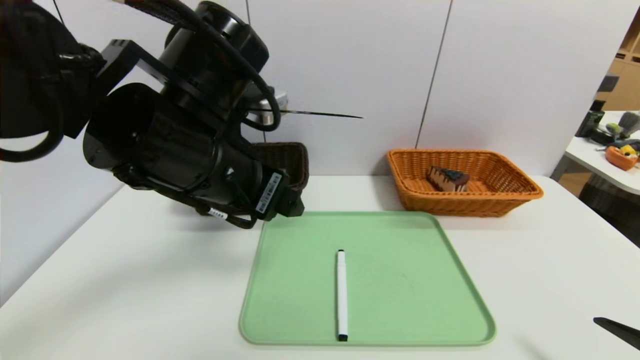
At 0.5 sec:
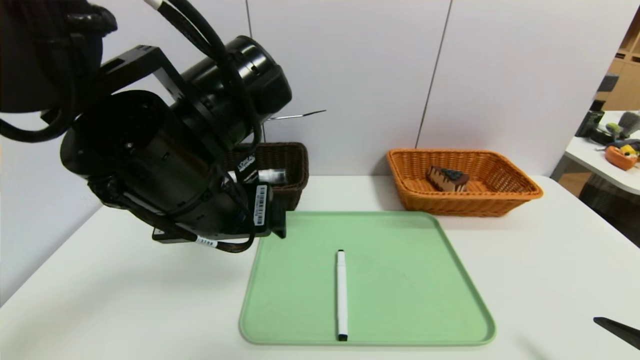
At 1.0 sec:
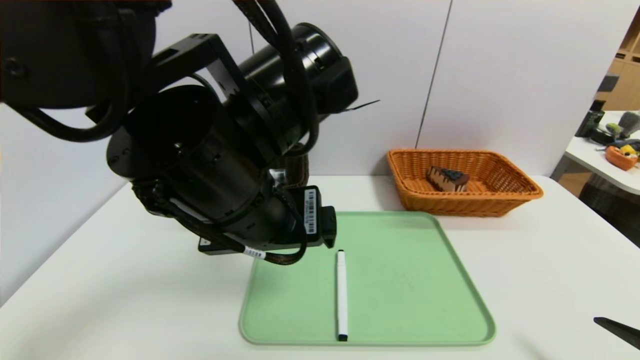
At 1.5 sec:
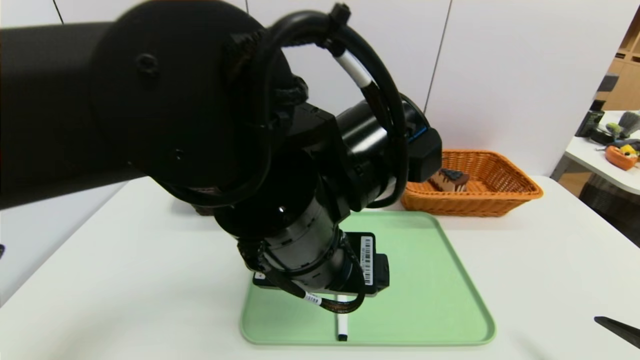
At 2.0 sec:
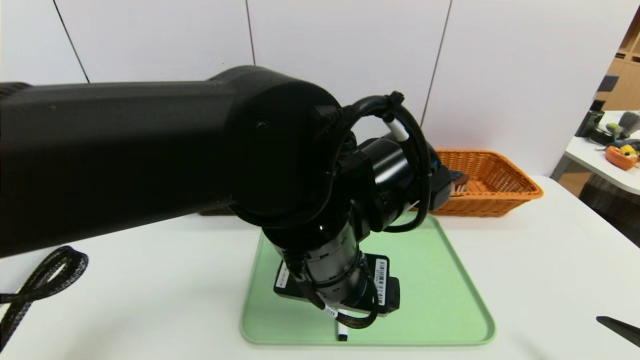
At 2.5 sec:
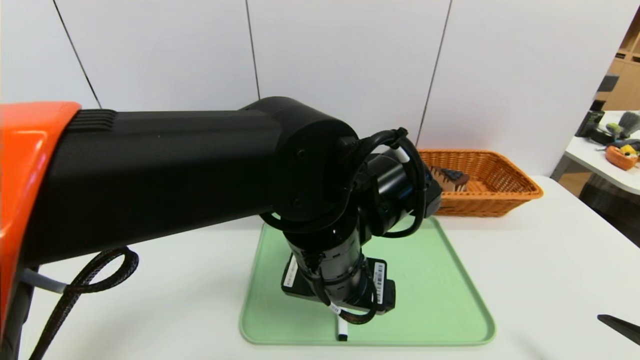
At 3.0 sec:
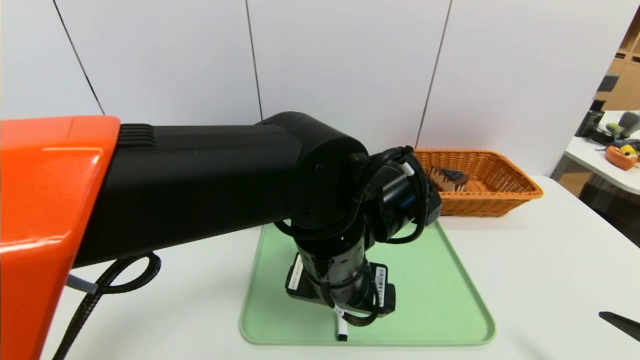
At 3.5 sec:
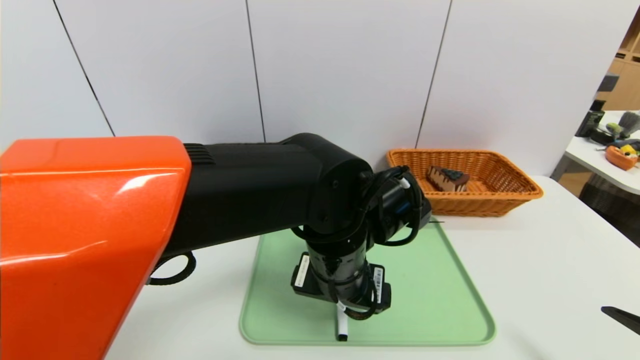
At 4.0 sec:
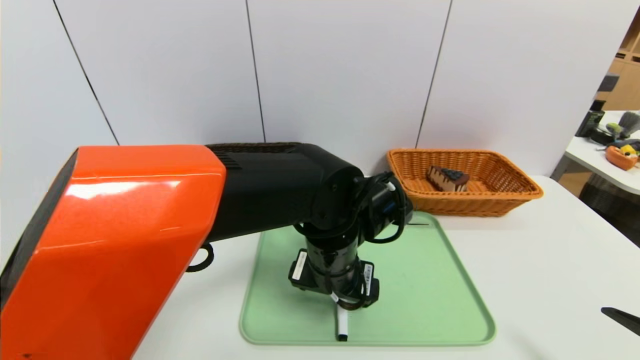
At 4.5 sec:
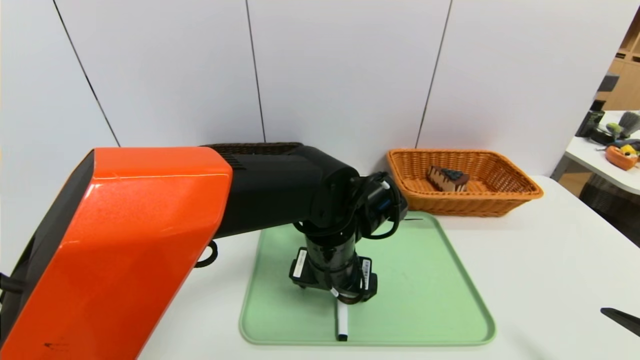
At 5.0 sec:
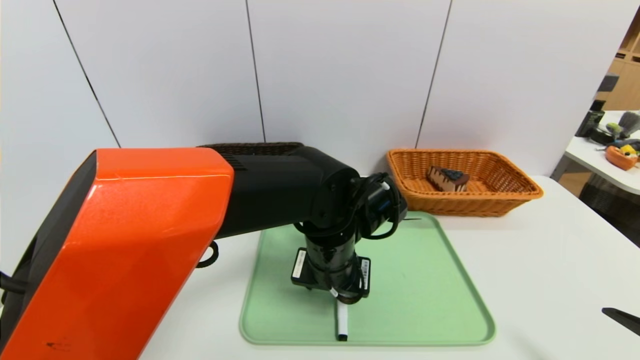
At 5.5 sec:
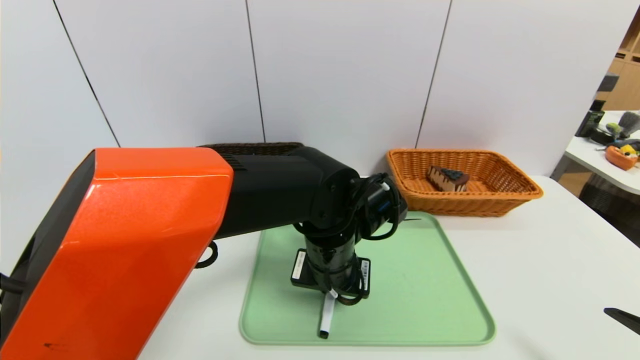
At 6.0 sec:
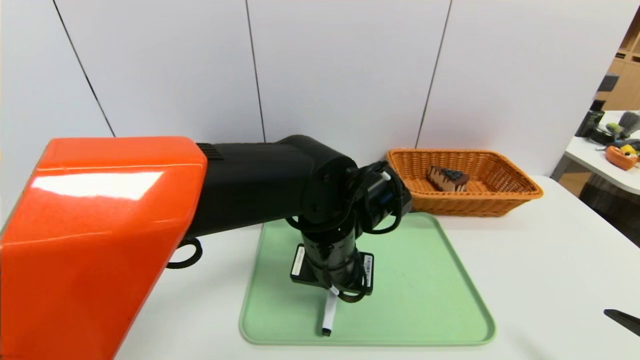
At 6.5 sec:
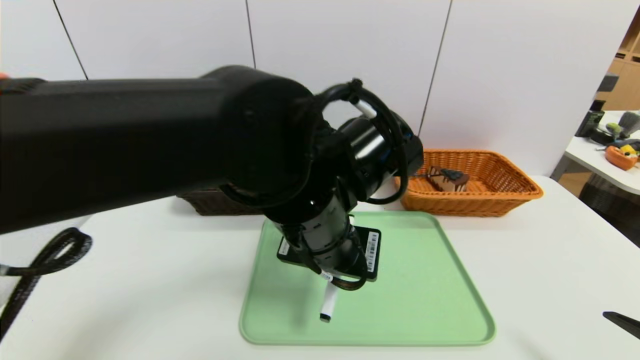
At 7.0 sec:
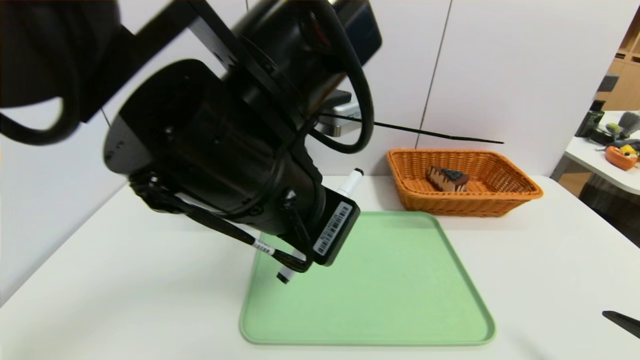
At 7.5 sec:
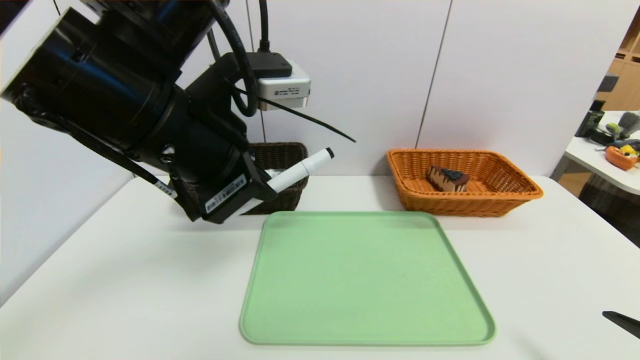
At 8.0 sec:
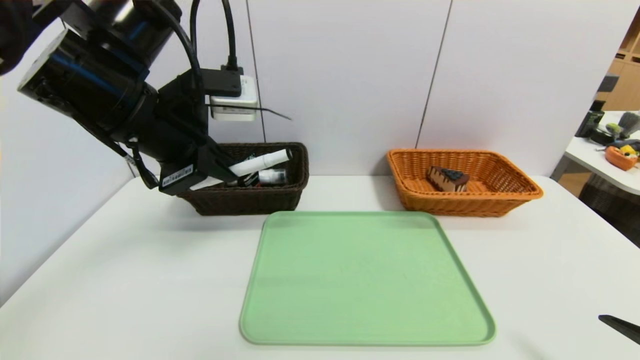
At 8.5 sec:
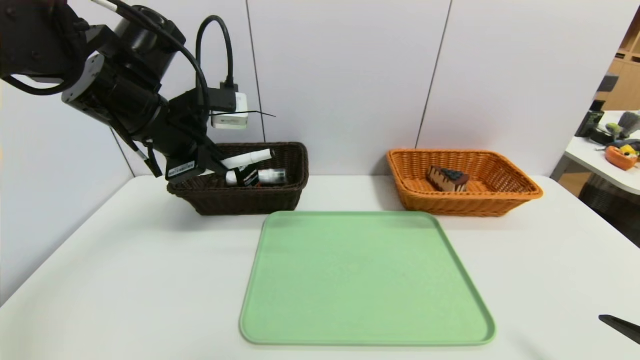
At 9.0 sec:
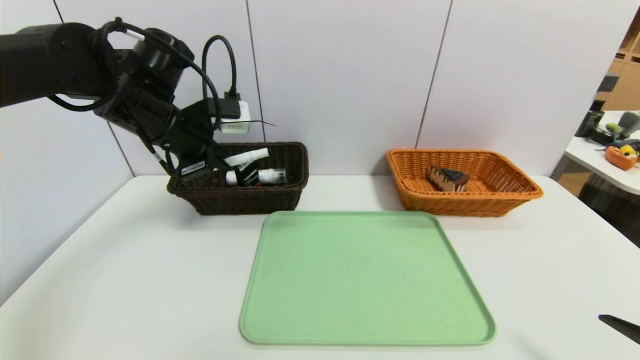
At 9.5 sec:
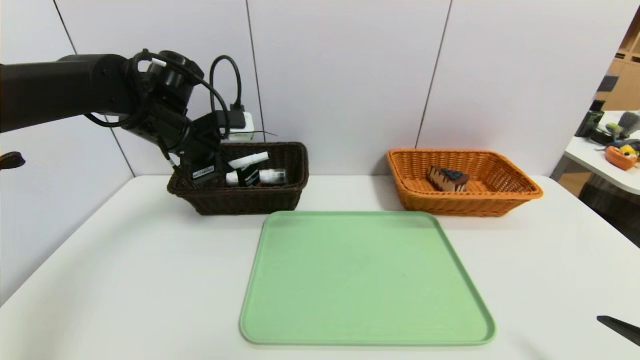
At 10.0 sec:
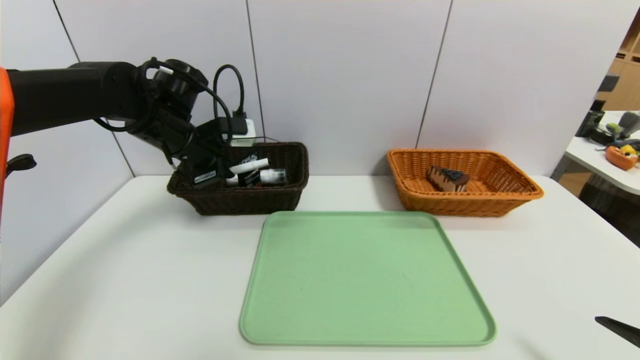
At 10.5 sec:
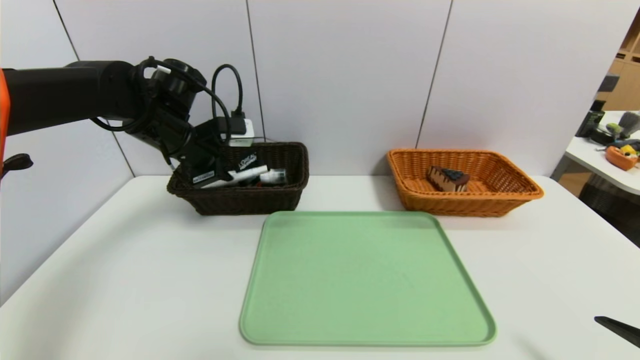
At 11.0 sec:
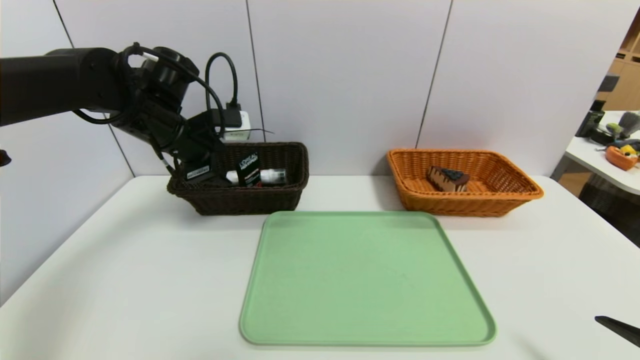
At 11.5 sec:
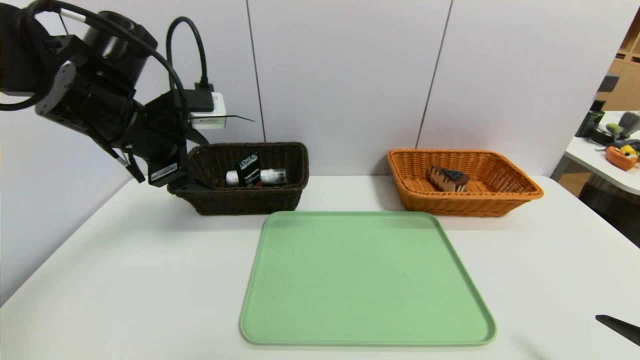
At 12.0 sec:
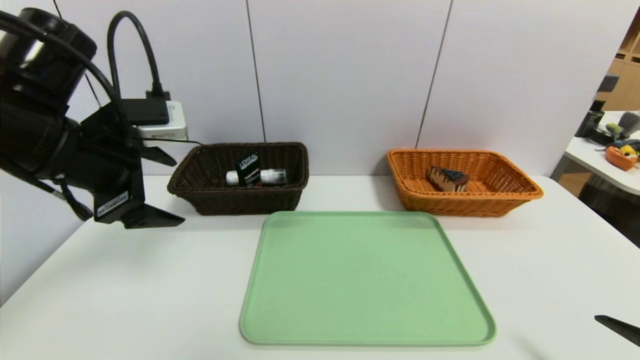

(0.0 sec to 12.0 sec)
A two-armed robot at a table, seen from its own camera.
Task of the whole recording: place the food in the right basket with the right gripper, and place the non food items in the left basket with the left gripper.
Step, 0.0 sec - 11.5 sec: Grasp the black marker and put it in the left basket.
0.0 sec - 2.0 sec: The left gripper is displaced to the right and downward by approximately 10 cm.
2.0 sec - 4.0 sec: The left gripper is displaced downward and forward by some 10 cm.
4.0 sec - 6.0 sec: The left gripper closes up.
6.0 sec - 8.0 sec: The left gripper goes some 25 cm to the left and upward.
8.0 sec - 10.0 sec: The left gripper is displaced forward and downward by approximately 15 cm.
10.0 sec - 12.0 sec: The left gripper travels backward by some 15 cm, and opens up.

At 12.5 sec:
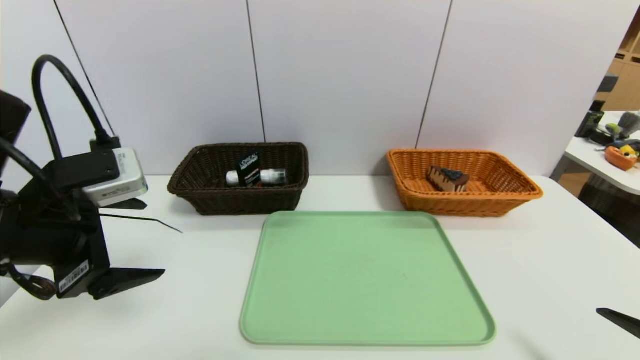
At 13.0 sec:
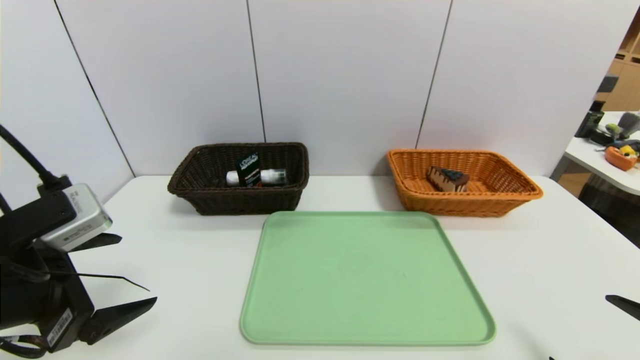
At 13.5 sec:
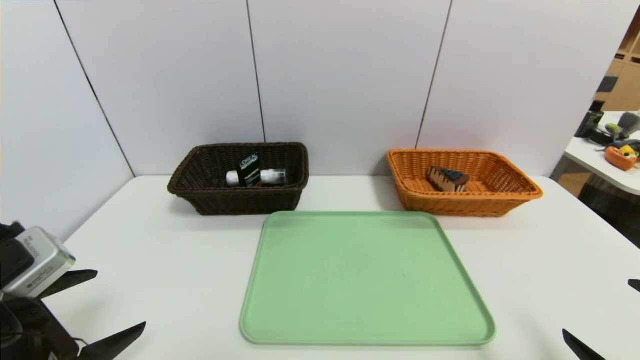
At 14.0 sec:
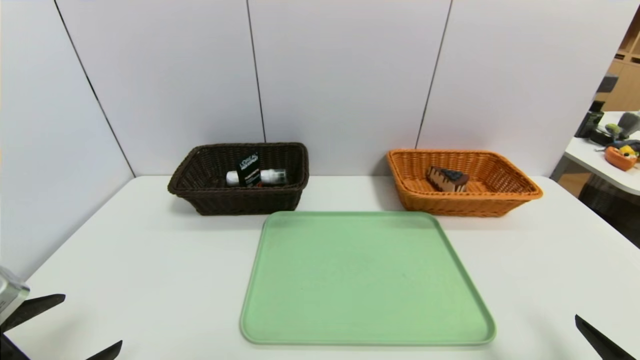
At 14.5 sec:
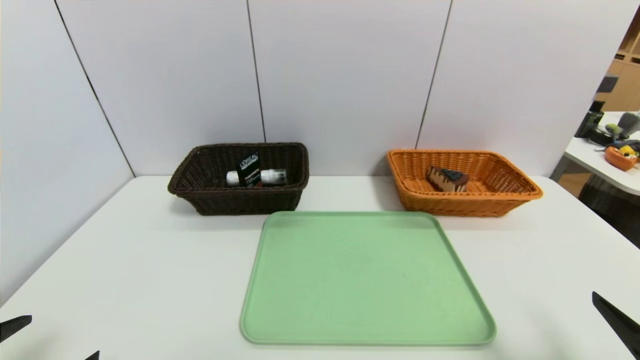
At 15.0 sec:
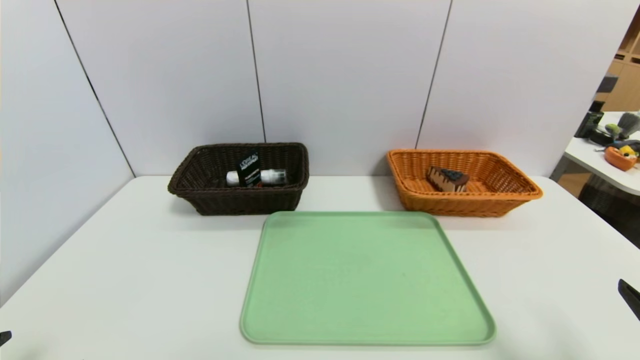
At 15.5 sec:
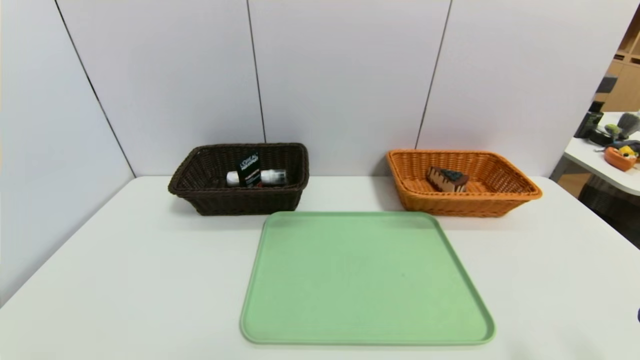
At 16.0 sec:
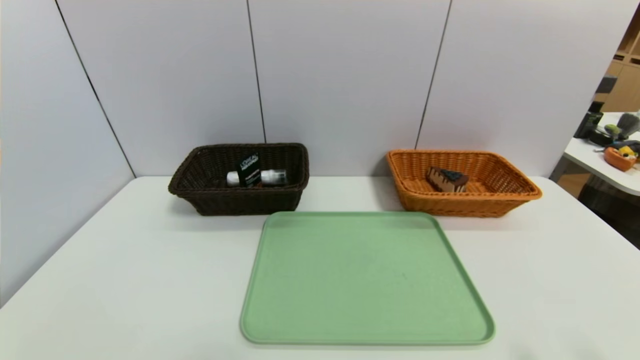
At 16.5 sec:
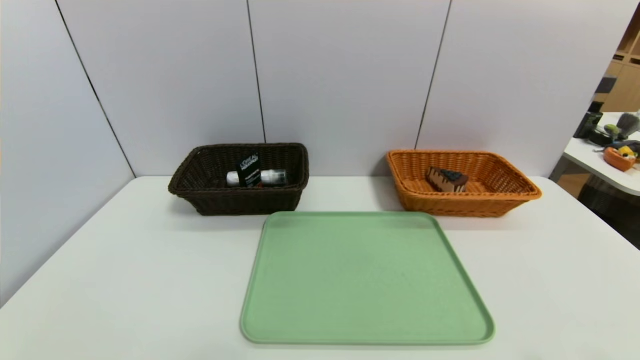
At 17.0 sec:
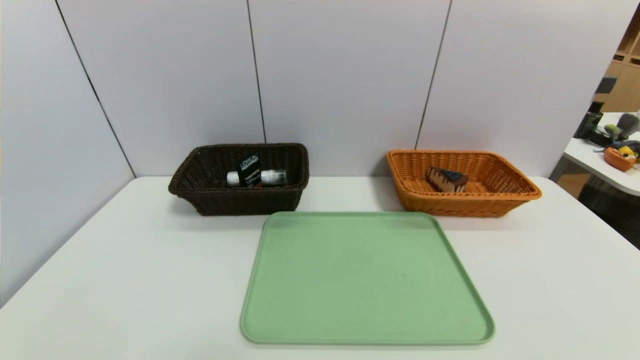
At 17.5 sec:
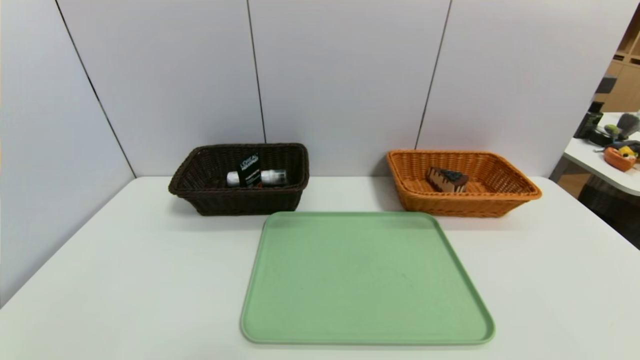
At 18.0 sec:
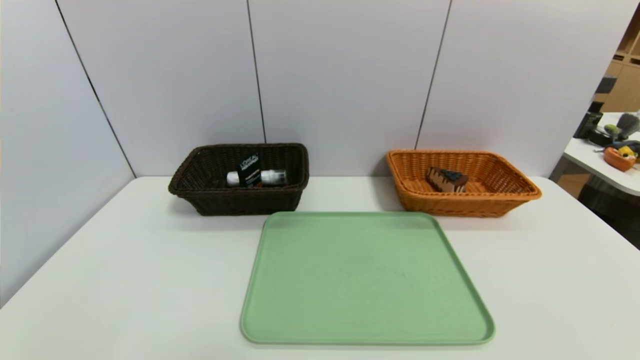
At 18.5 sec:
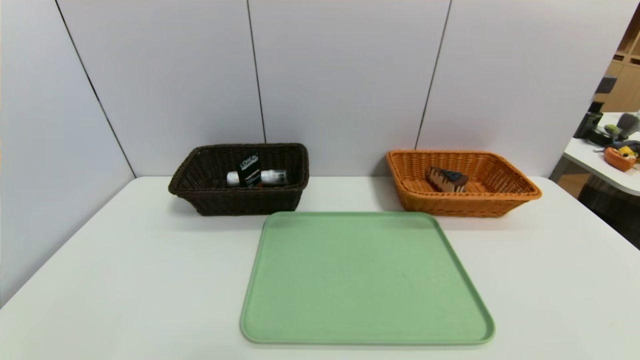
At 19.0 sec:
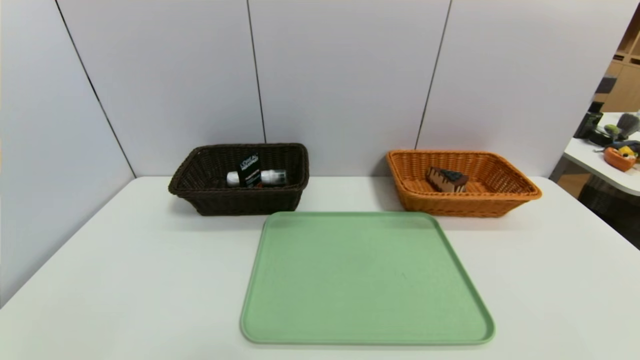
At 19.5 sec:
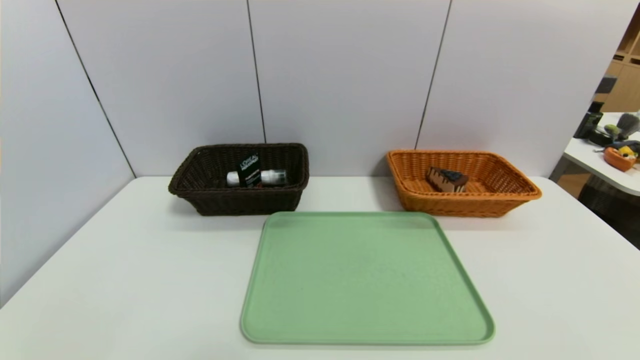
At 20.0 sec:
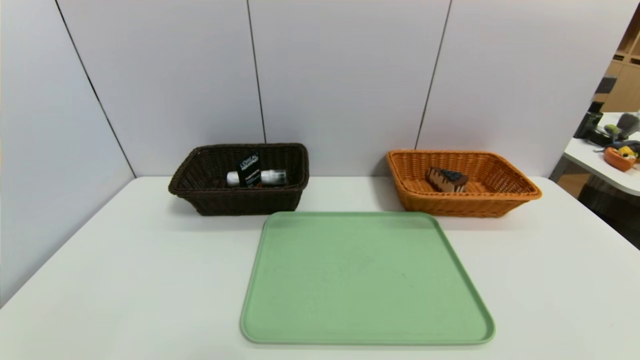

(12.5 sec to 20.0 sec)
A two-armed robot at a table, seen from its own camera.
Task of the whole recording: place the food in the right basket with the right gripper, and place the non food items in the left basket with the left gripper.
12.5 sec - 14.5 sec: The left gripper moves backward and downward, some 15 cm.
14.5 sec - 16.5 sec: The right gripper shifts approximately 5 cm backward. Meanwhile the left gripper is displaced downward and backward by some 10 cm.
